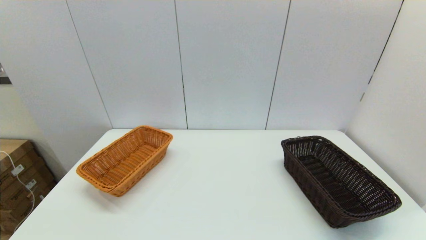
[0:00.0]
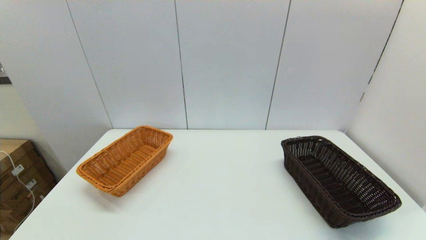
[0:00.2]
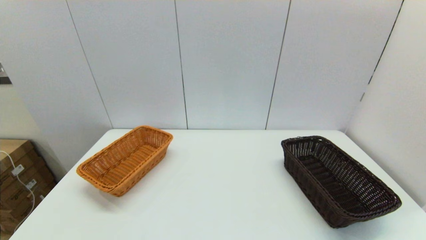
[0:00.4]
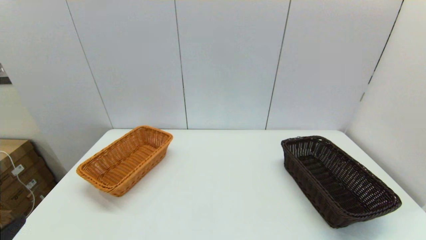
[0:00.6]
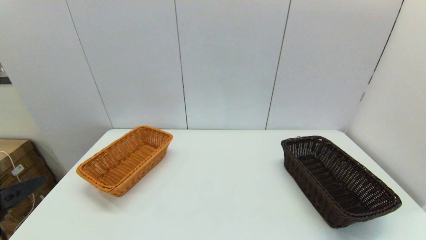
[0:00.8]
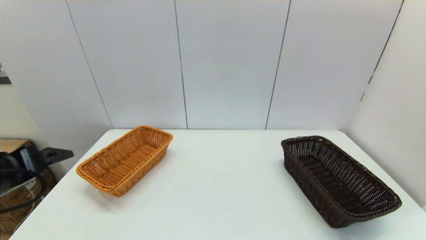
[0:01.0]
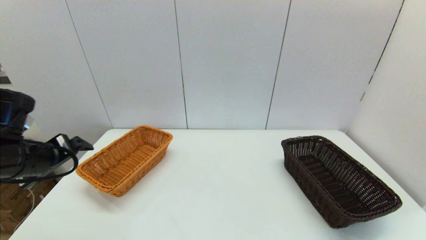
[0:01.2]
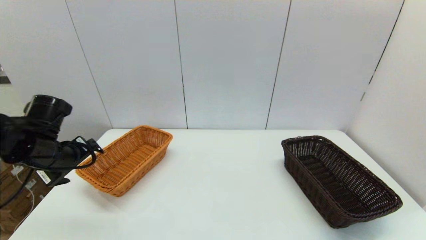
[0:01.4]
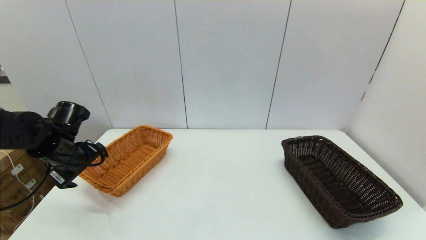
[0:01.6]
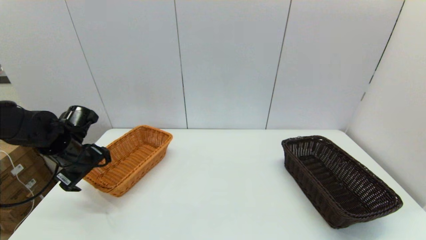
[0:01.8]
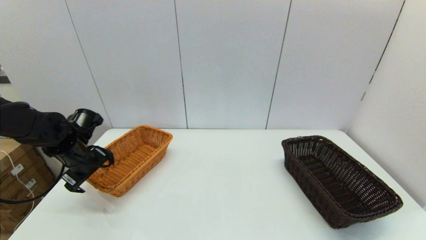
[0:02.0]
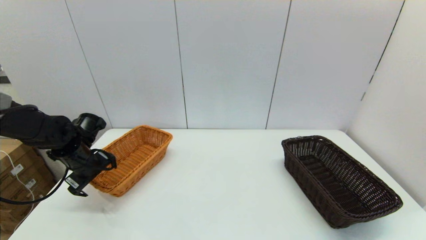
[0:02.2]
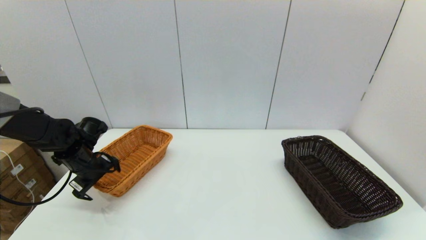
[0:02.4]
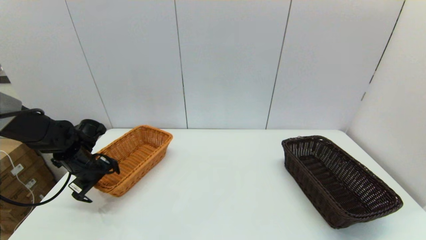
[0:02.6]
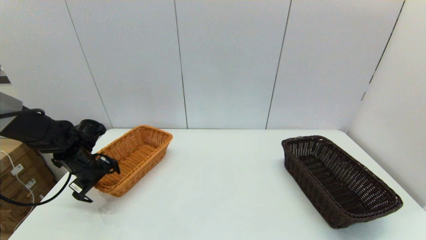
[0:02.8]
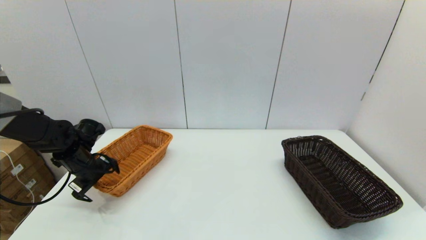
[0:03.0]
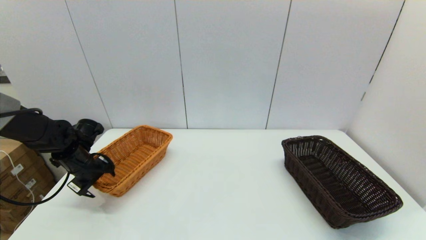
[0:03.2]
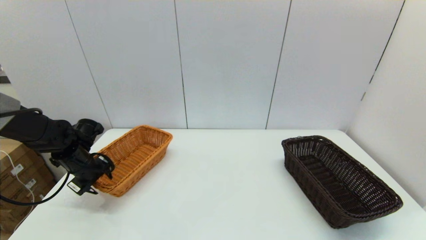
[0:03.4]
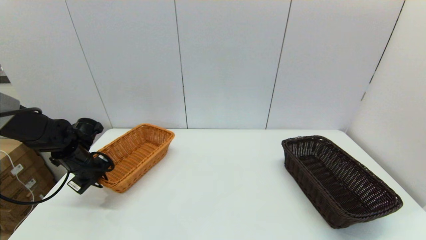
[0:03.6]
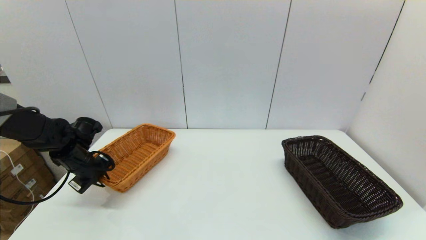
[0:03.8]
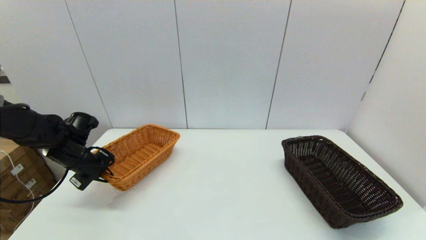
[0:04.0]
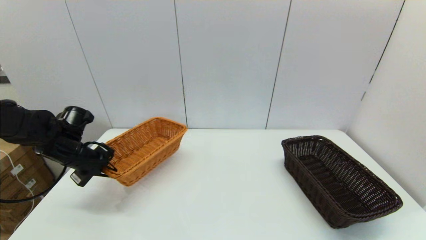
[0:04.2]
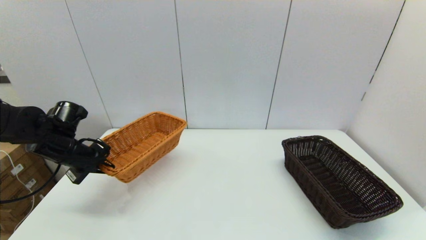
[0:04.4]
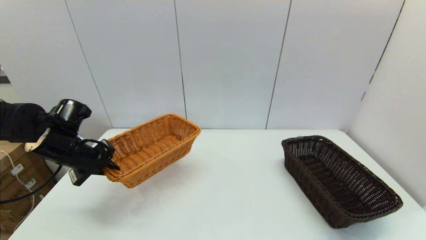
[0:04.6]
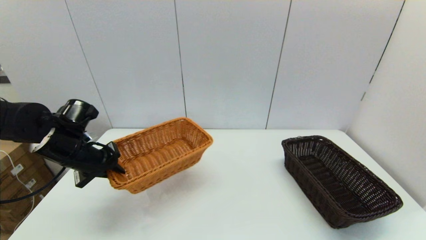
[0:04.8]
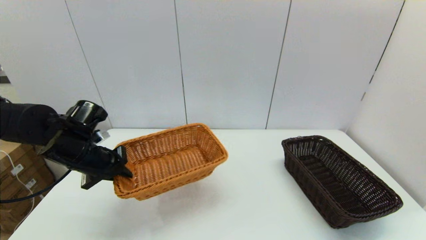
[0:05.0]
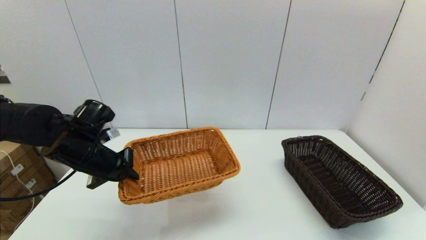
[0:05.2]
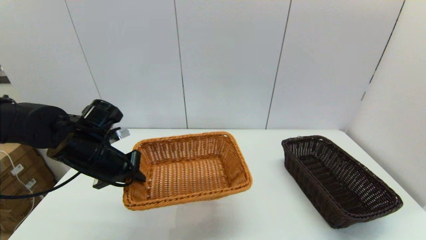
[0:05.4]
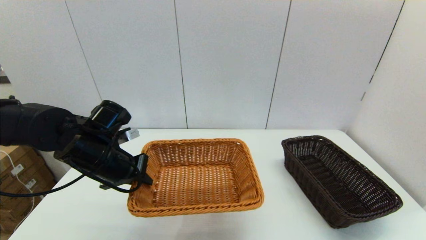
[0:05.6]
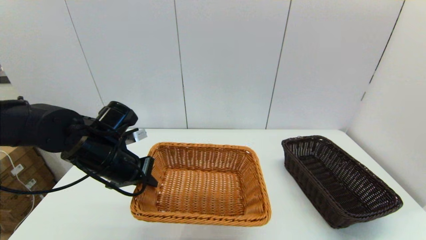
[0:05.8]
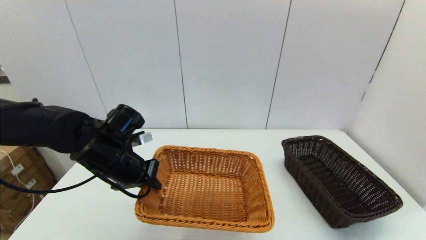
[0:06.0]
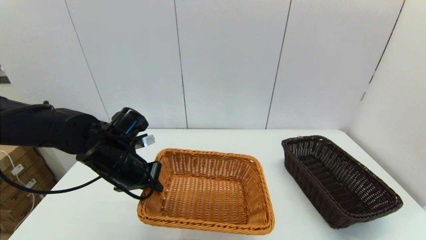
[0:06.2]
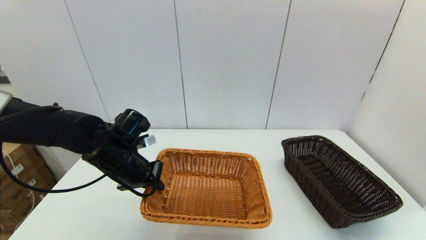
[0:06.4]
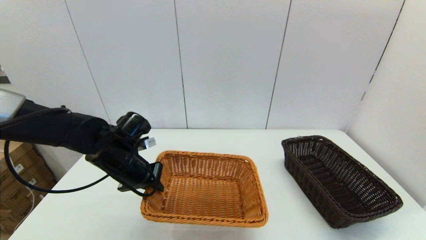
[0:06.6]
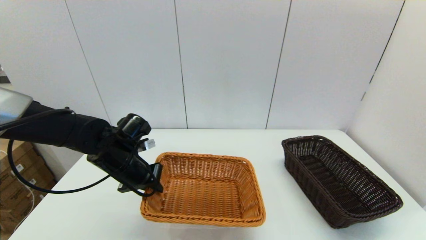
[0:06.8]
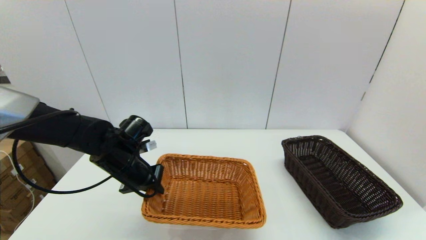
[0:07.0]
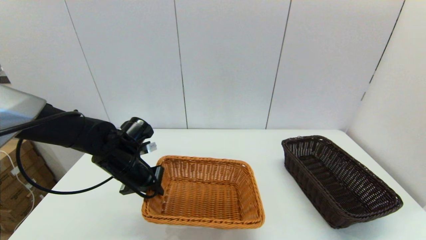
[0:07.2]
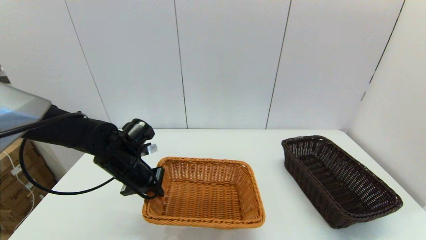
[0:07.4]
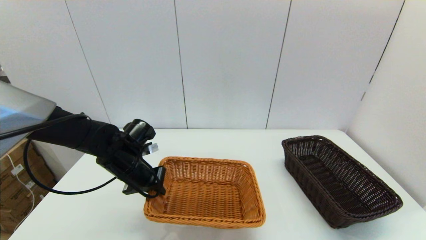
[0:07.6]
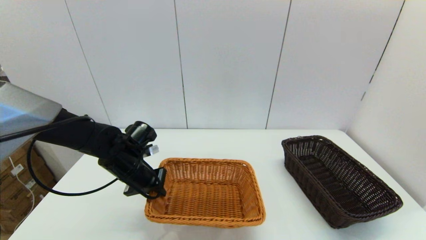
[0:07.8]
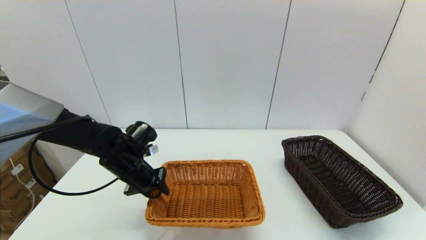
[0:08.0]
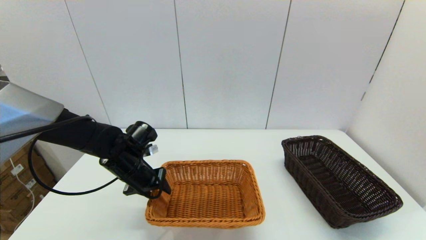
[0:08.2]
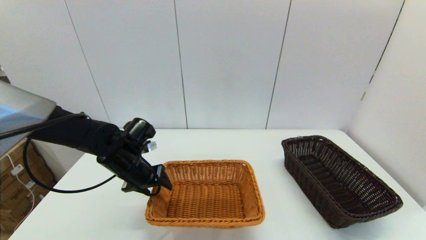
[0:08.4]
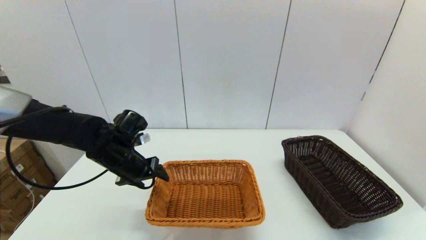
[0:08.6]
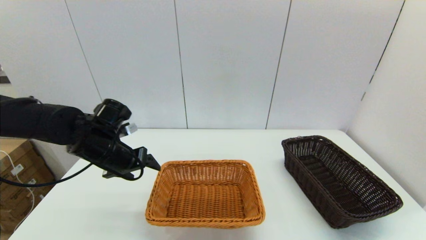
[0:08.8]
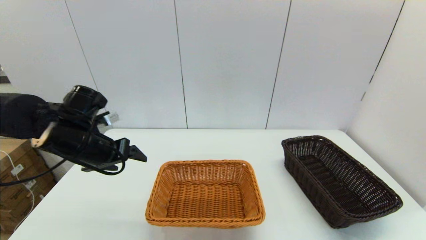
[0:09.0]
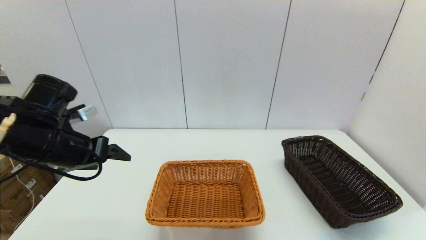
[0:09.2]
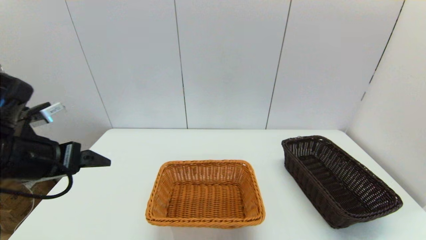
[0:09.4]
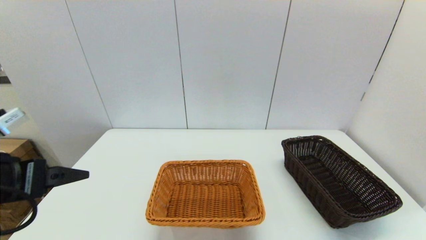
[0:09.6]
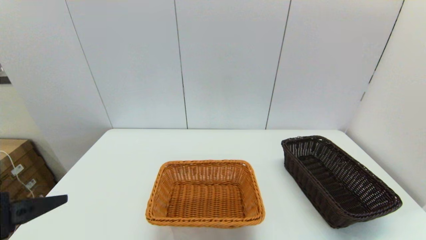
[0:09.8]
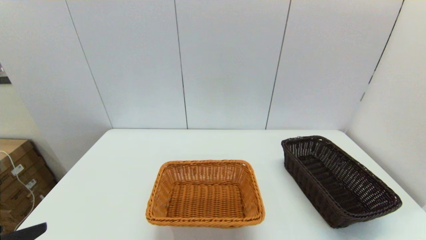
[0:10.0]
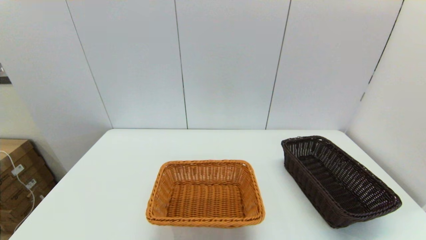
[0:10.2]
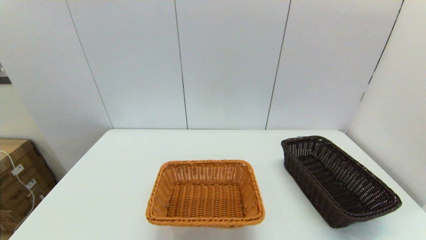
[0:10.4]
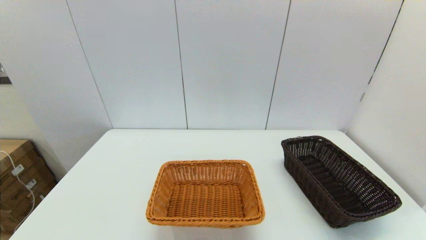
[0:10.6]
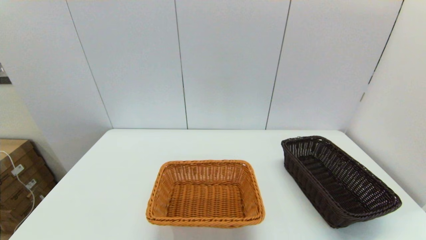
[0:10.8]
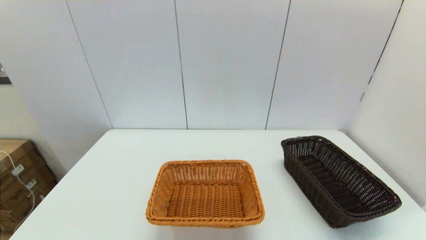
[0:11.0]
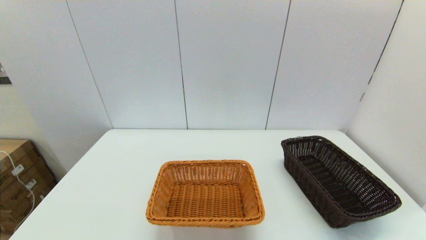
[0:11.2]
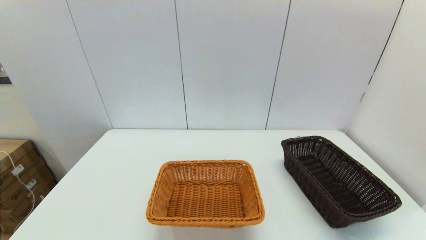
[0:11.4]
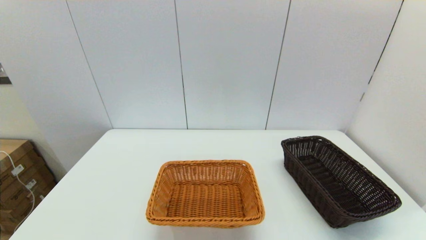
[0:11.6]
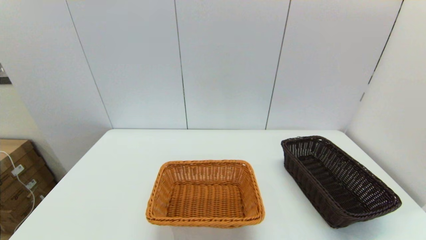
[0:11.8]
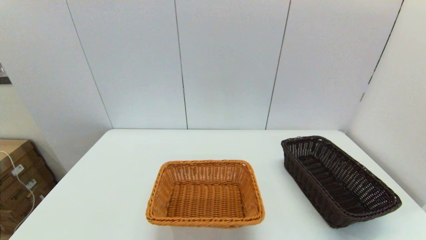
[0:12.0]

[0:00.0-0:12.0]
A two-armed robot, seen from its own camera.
Task of the whole recording: stack a basket on top of another basket.
Step, 0:00.0 to 0:03.8: Grasp the light basket with the left gripper.
Step, 0:04.0 to 0:08.8: Place the light basket on the middle of the table with the left gripper.
0:00.0 to 0:01.6: The left gripper heads forward, covering about 35 cm.
0:01.6 to 0:03.0: The left gripper travels downward by roughly 5 cm.
0:03.0 to 0:04.4: The left gripper travels upward by approximately 5 cm, and closes up.
0:04.4 to 0:06.0: The left gripper heads to the right, covering some 15 cm.
0:06.0 to 0:07.6: The left gripper is displaced downward by some 5 cm.
0:07.6 to 0:09.0: The left gripper heads upward and to the left, covering about 10 cm, and opens its fingers.
0:09.0 to 0:10.4: The left gripper moves backward, roughly 30 cm.

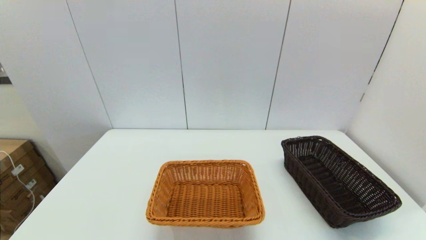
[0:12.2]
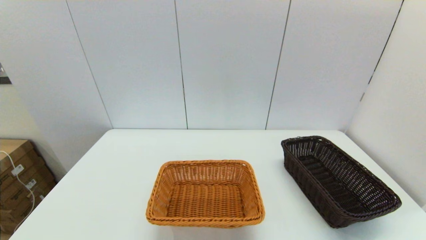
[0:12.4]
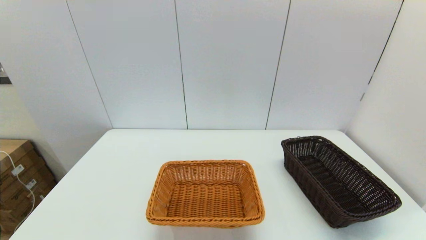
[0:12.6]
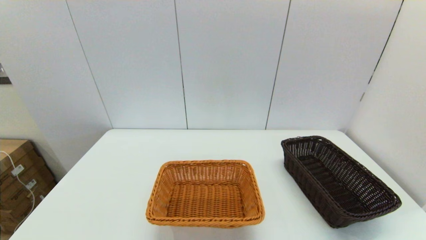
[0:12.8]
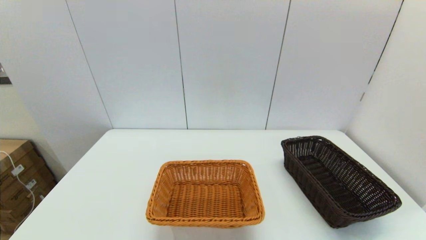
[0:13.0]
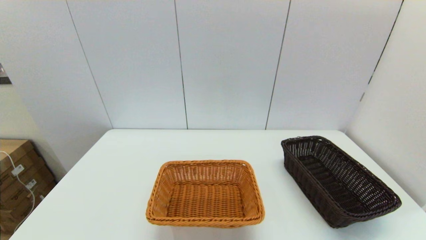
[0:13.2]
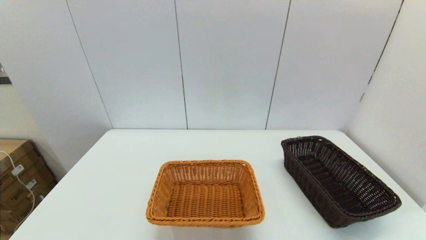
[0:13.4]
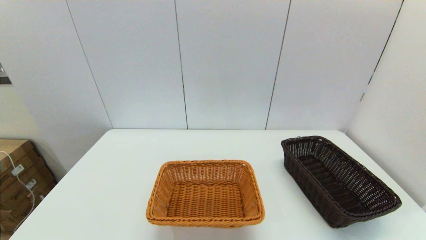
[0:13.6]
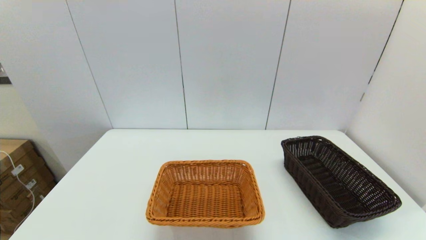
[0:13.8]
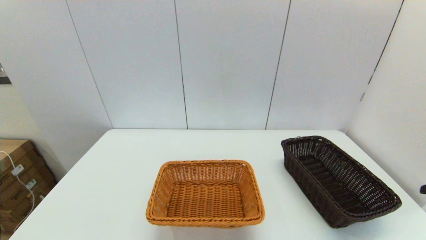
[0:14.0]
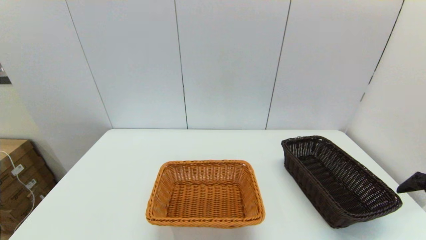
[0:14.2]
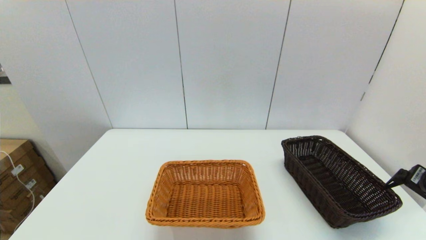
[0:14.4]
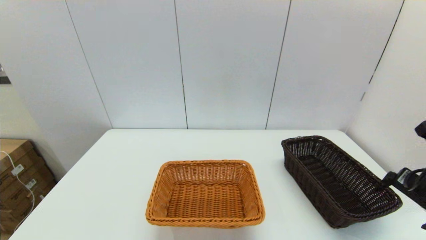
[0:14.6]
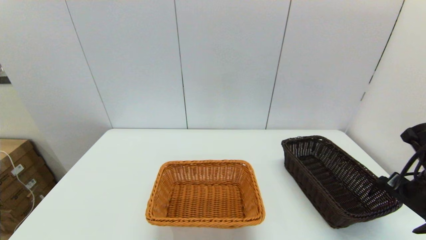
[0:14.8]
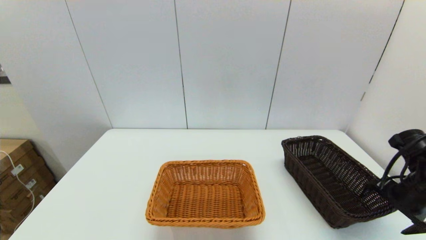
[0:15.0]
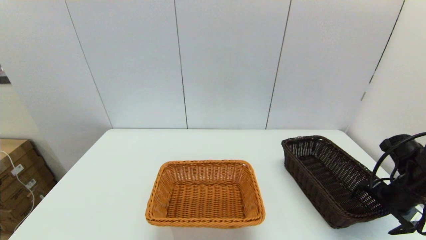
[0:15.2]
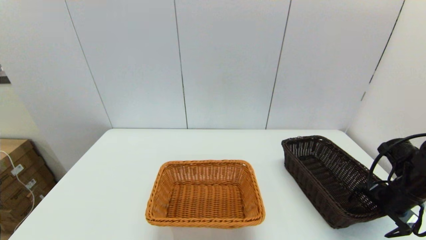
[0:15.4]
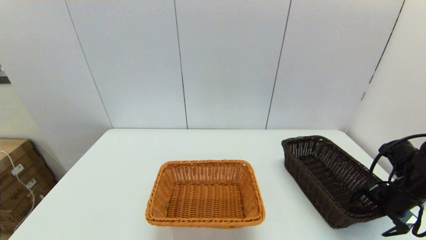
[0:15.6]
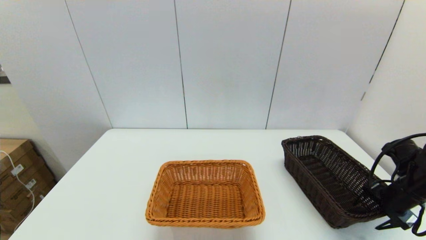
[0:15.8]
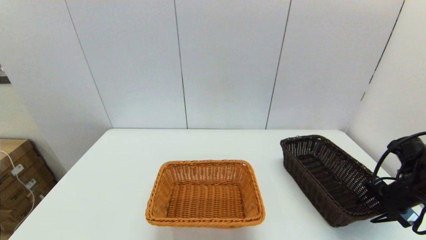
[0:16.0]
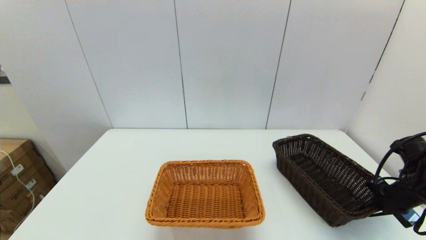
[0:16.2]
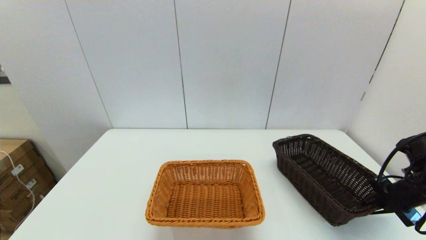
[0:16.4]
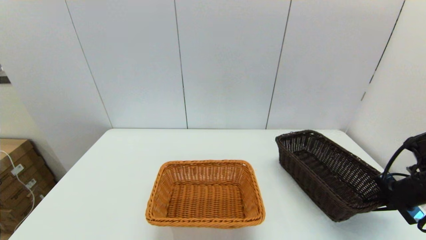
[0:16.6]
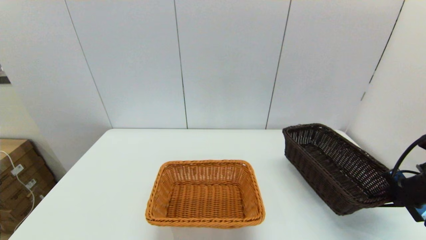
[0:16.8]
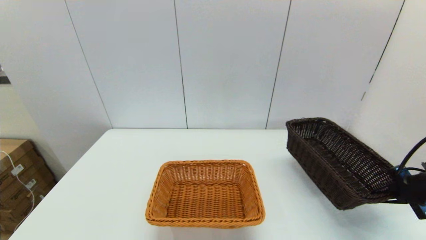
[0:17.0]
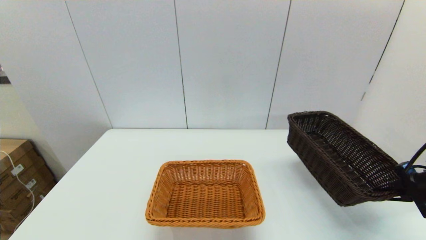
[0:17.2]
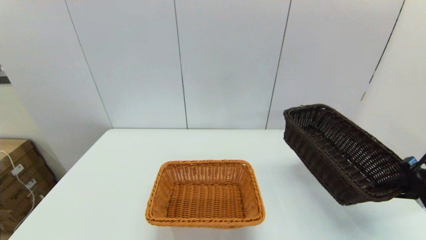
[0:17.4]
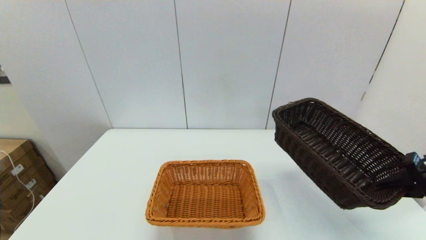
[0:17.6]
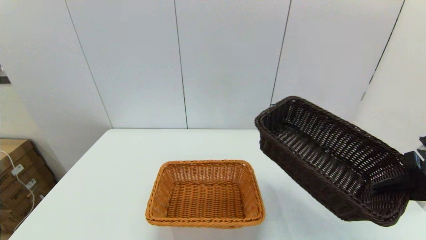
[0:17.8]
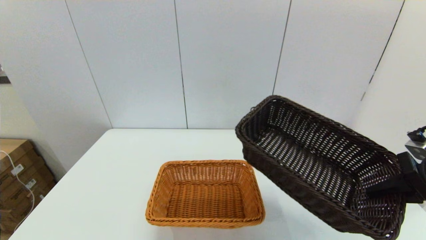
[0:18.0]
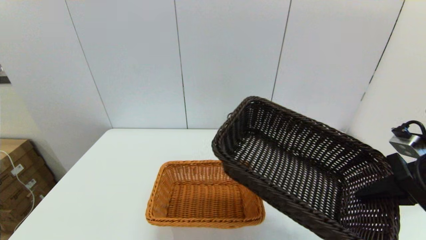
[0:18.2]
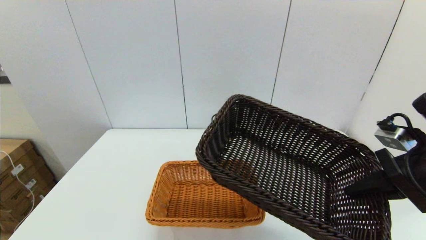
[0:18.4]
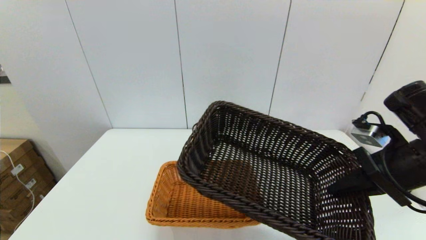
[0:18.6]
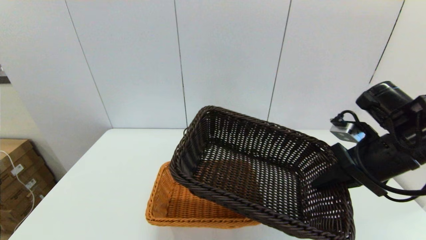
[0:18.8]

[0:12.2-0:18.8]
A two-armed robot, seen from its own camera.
Task of the whole recording: stack a basket on top of another basket.
Step, 0:12.2 to 0:16.0: Grasp the dark basket with the right gripper.
0:13.8 to 0:15.4: The right gripper is displaced forward and downward by roughly 25 cm.
0:15.4 to 0:17.2: The right gripper is displaced upward by roughly 5 cm, and closes up.
0:17.2 to 0:18.8: The right gripper is displaced to the left and upward by about 20 cm.
